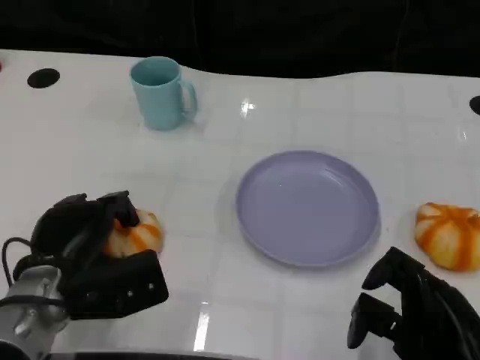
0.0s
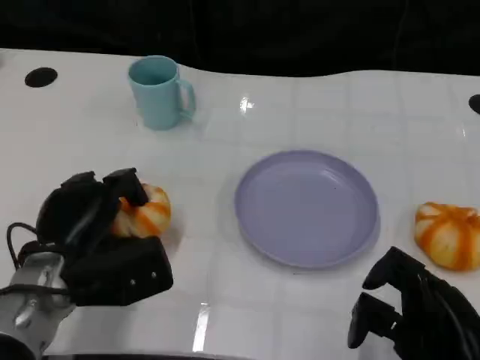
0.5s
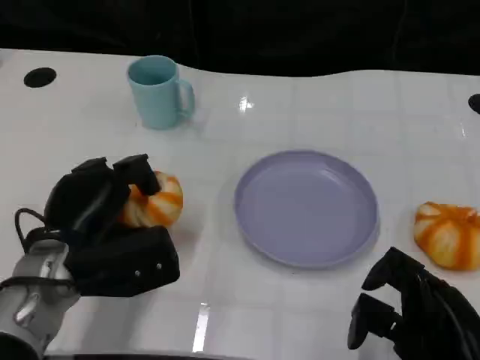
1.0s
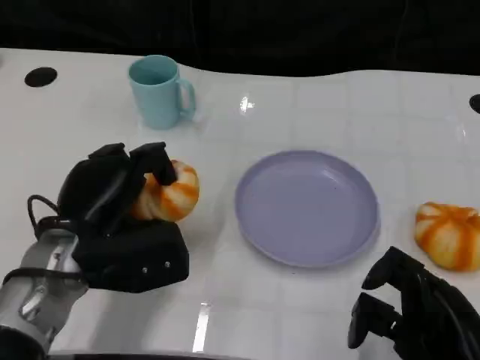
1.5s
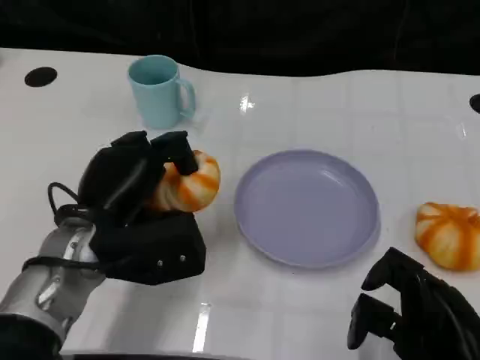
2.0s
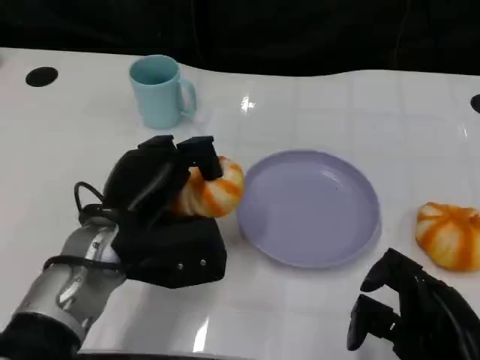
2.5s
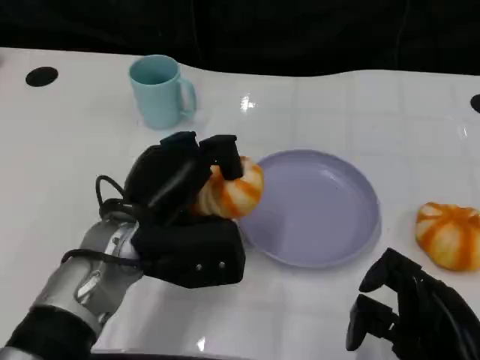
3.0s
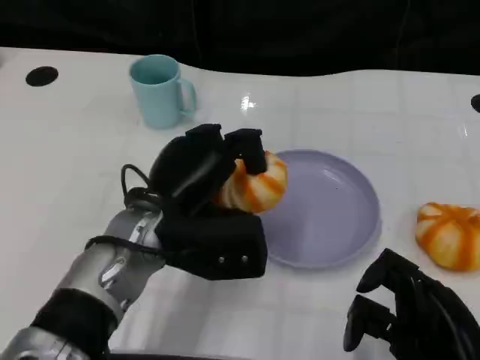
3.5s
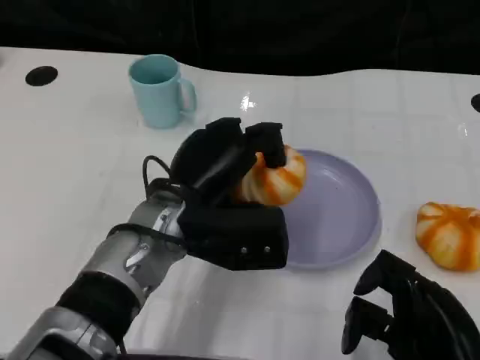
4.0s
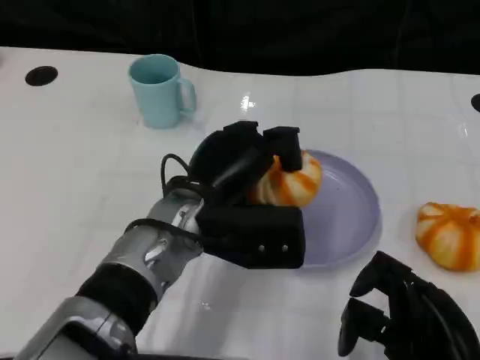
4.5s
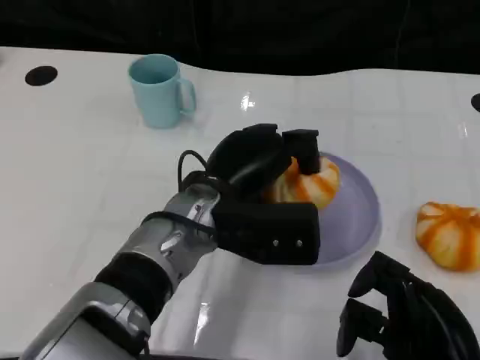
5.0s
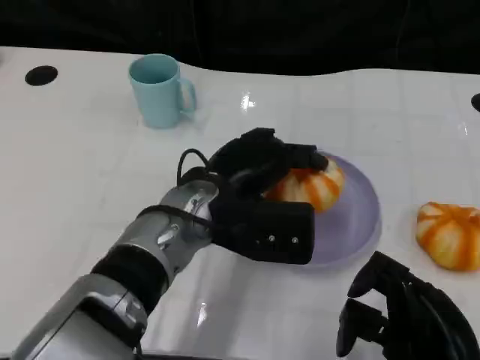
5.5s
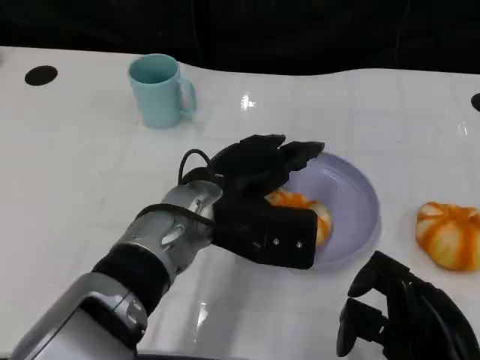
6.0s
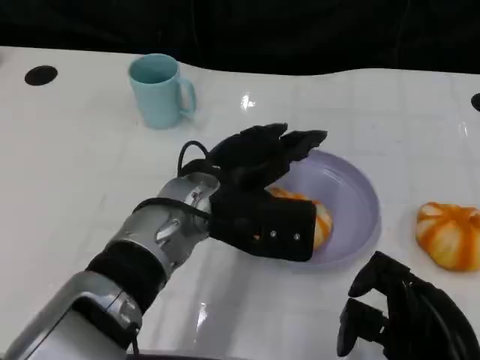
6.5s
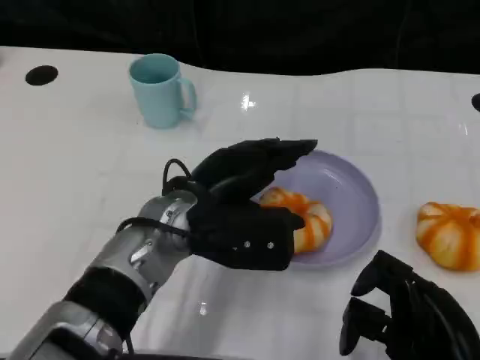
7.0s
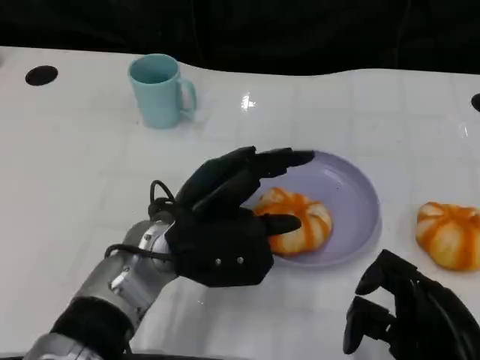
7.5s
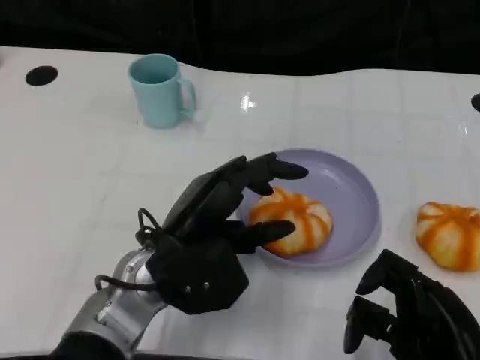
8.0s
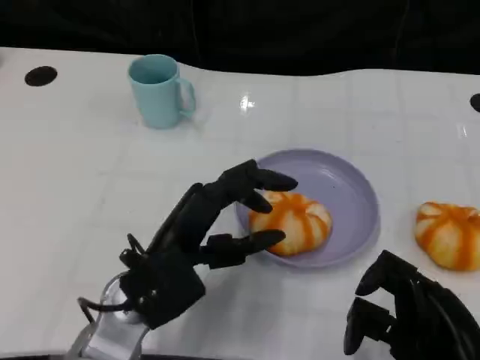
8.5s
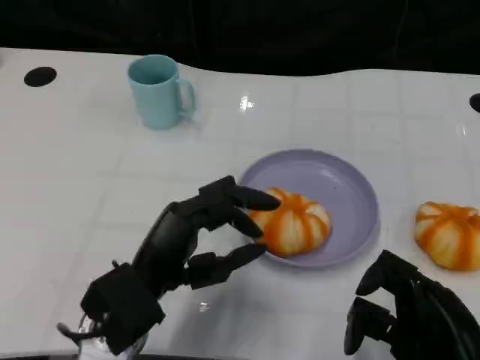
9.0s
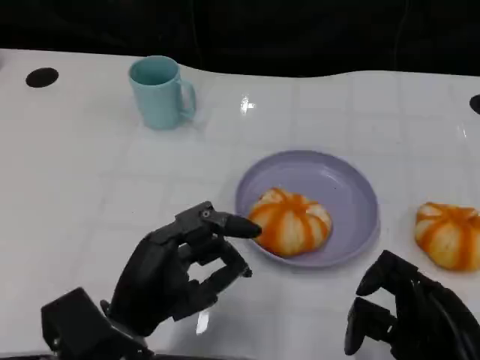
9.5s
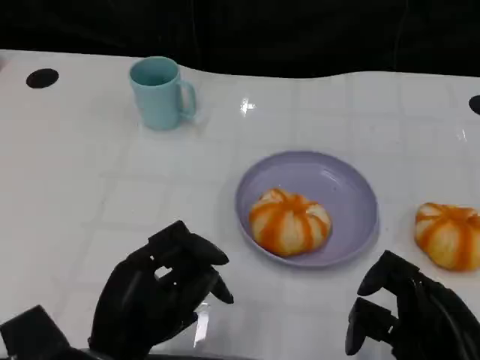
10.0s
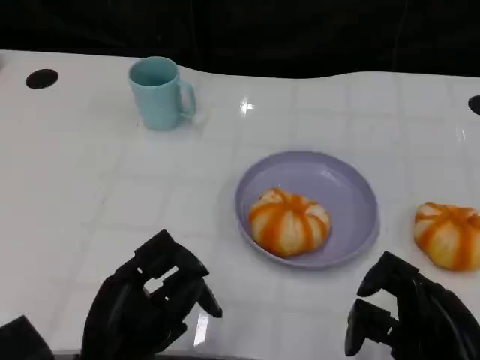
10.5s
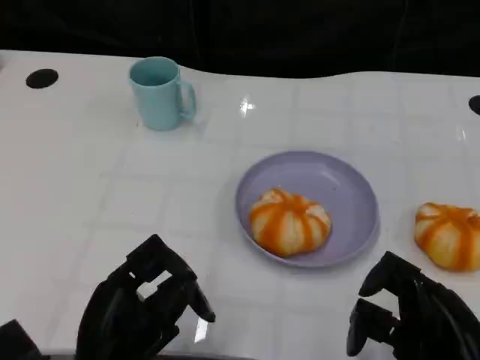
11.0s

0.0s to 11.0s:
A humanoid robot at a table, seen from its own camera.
Task of the whole recording: Grasp the bread from the table and place it into the plate.
0.0s to 2.0s: The left hand is displaced upward by about 5 cm.
2.0s to 3.5s: The left hand is displaced to the right by roughly 5 cm.
3.5s to 5.5s: The left hand ends up roughly 5 cm from where it was.
7.5s to 9.0s: The left hand travels backward by approximately 5 cm.
9.0s to 11.0s: The left hand shifts some 5 cm backward.

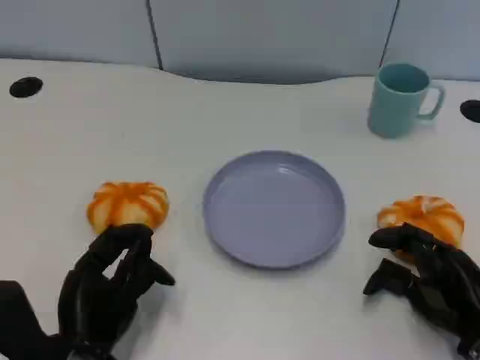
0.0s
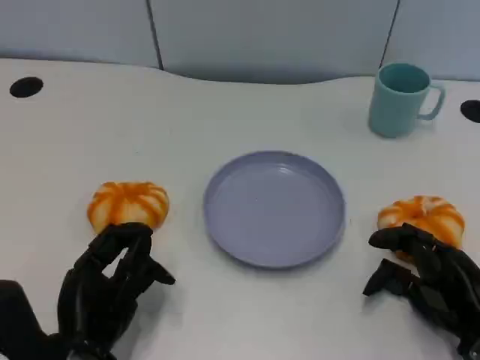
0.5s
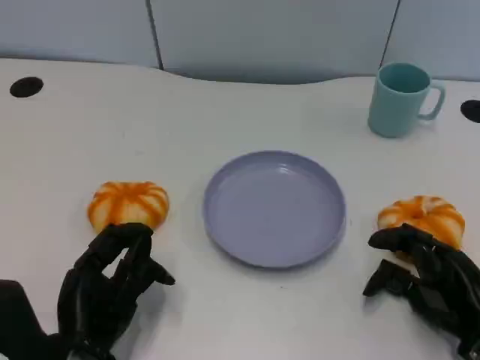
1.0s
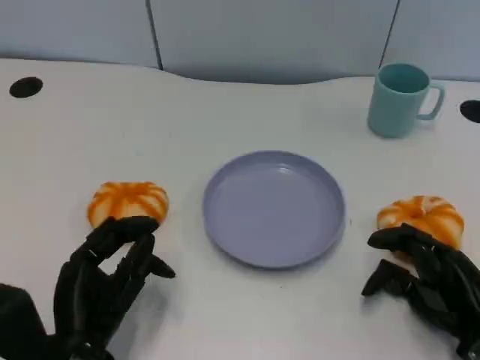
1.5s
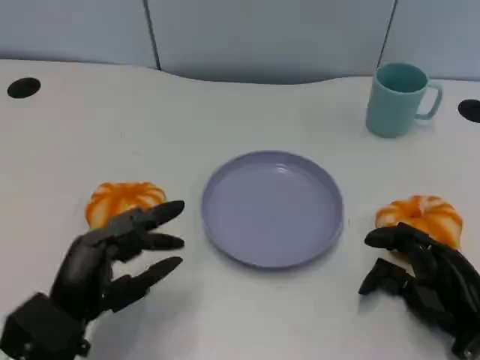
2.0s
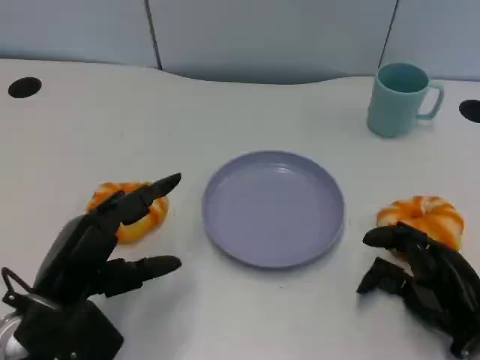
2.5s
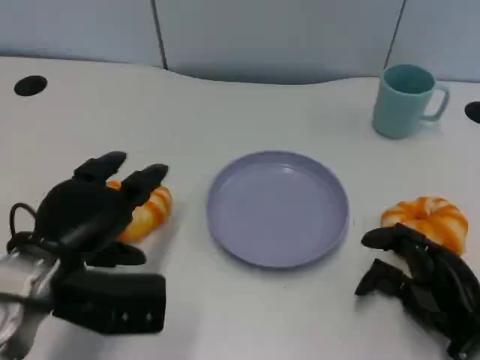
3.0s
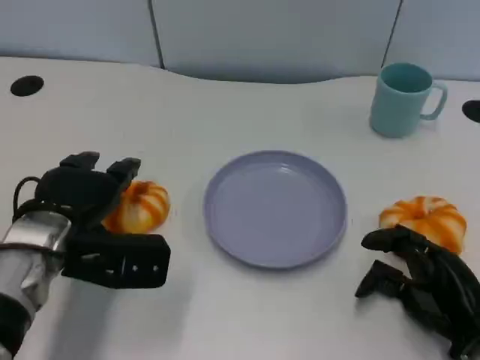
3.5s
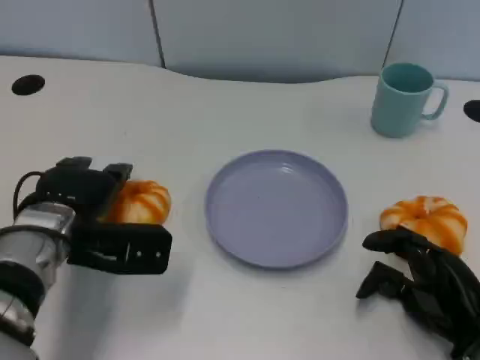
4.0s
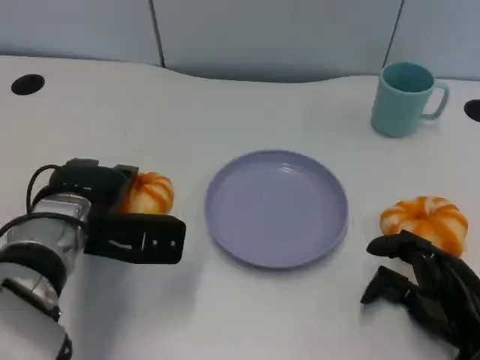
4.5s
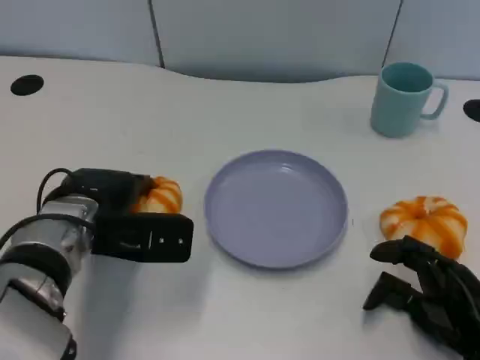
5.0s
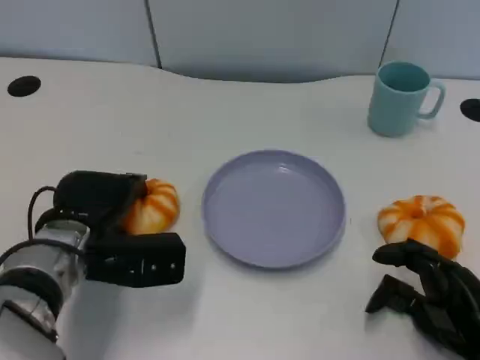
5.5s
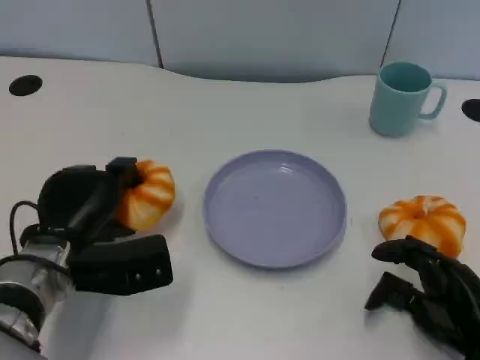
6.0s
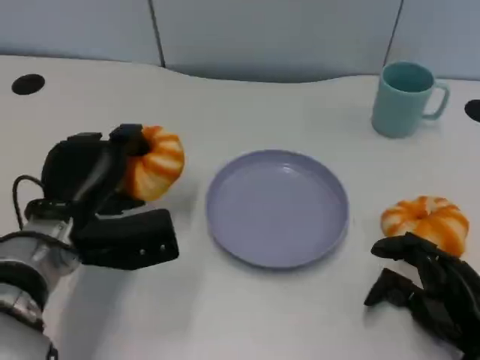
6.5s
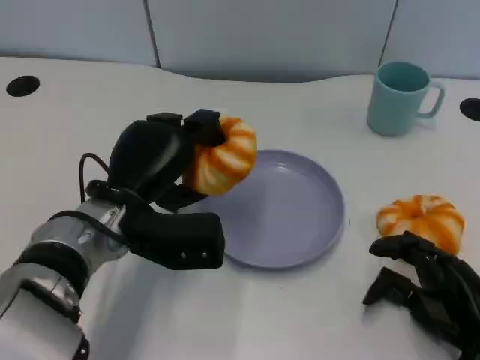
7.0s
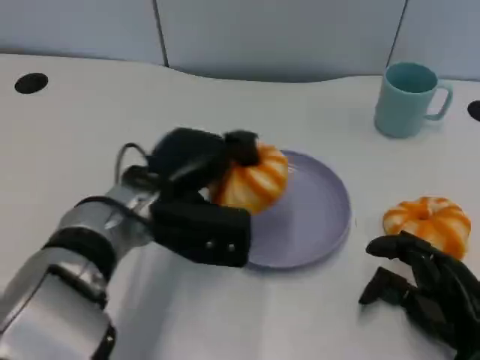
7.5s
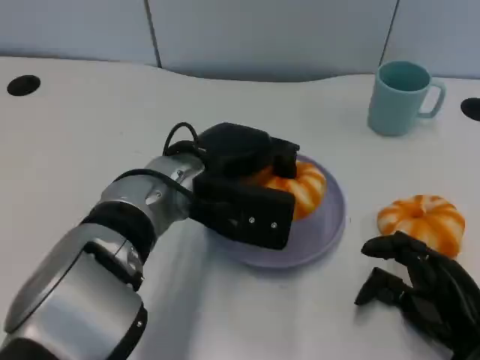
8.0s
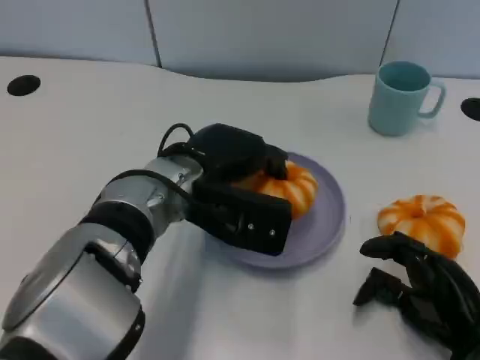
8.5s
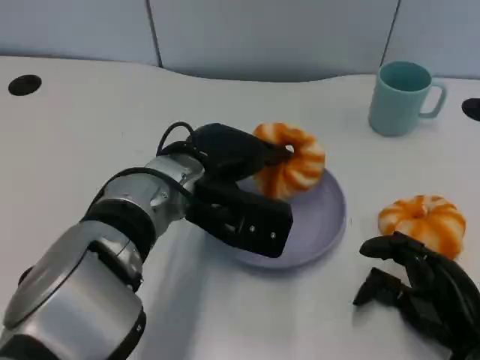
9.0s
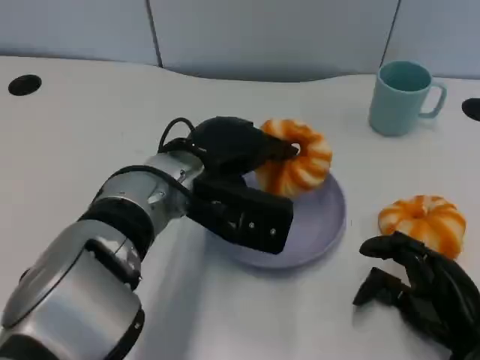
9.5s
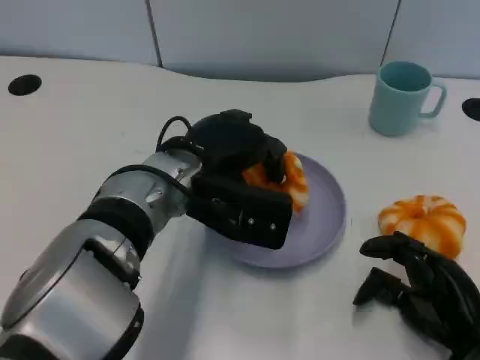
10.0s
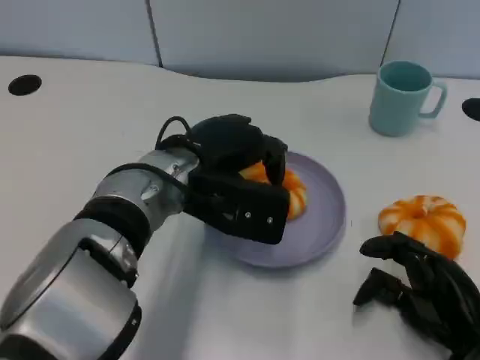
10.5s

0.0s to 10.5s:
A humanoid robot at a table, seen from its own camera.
Task of the whole recording: Grasp the bread from the table and place it into the plate.
2.0s to 4.0s: The left hand moves forward, about 10 cm.
6.5s to 8.5s: The left hand shifts about 10 cm to the right.
8.5s to 10.5s: The two hands keep their place.

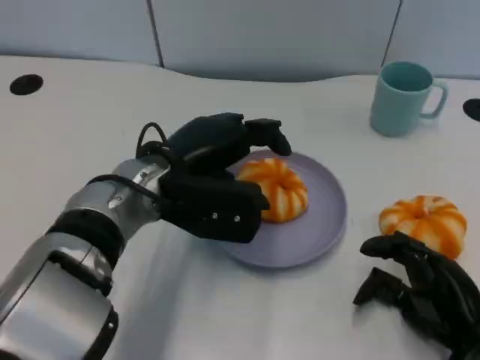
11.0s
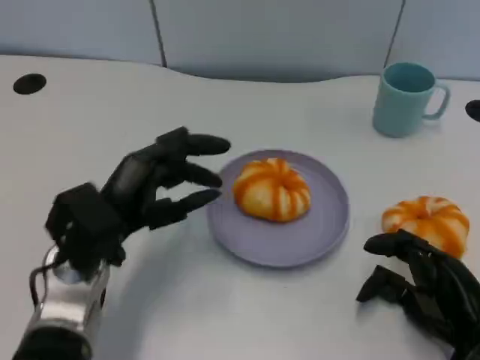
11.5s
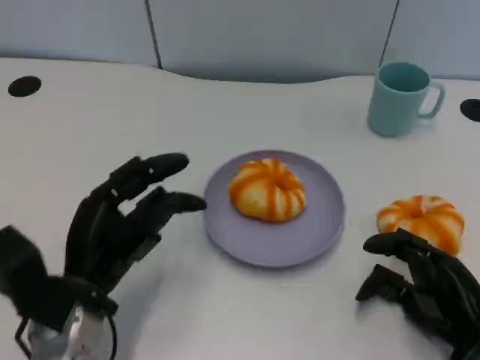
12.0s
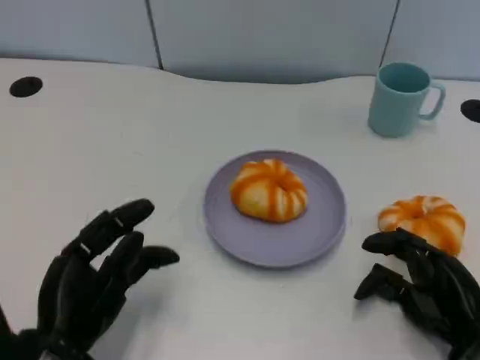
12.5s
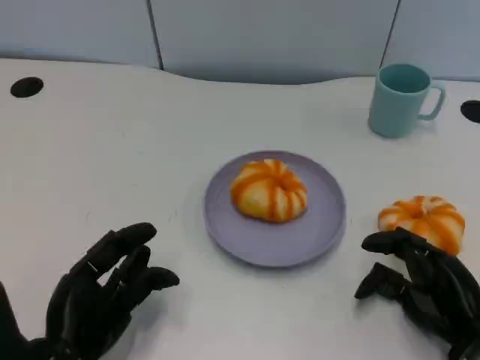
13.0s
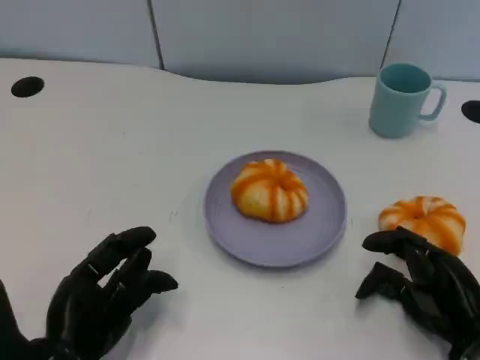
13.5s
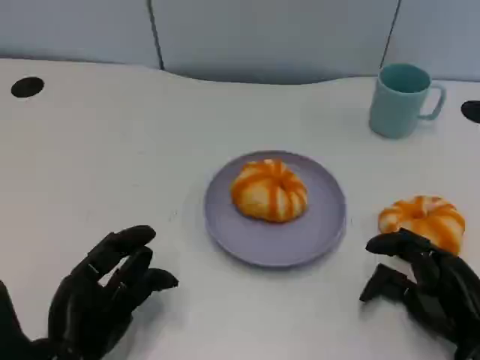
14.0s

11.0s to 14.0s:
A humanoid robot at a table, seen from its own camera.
Task of the whole recording: Grasp the bread from the table and place it into the plate.
11.0s to 12.5s: The left hand moves backward, to the left and downward, about 20 cm.
12.5s to 14.0s: The hands stay close to where they were, moving slightly.

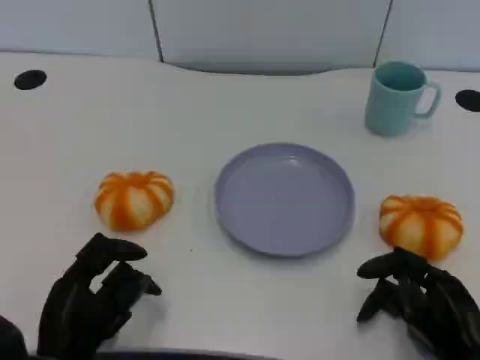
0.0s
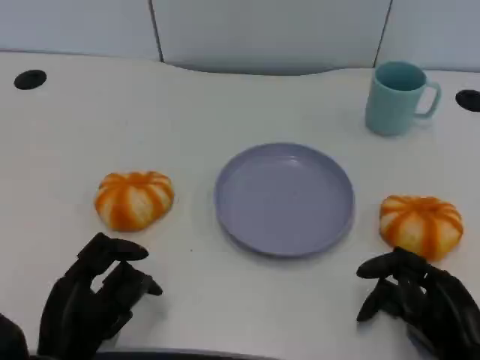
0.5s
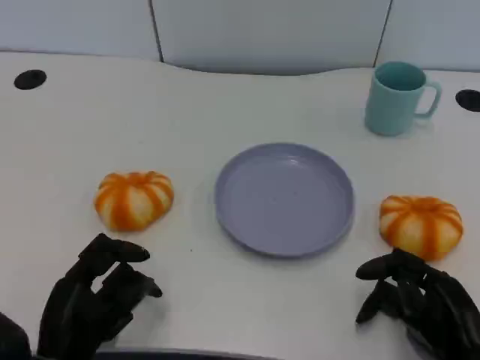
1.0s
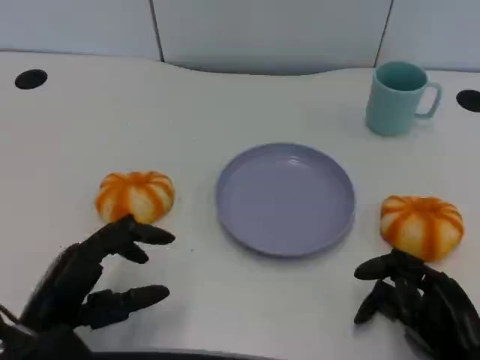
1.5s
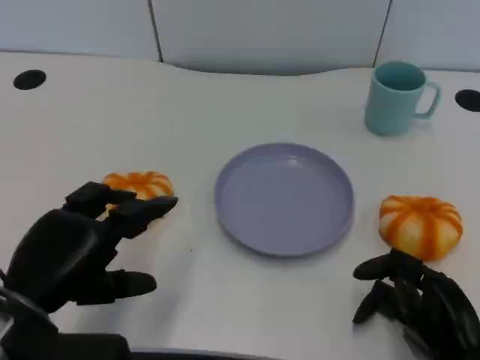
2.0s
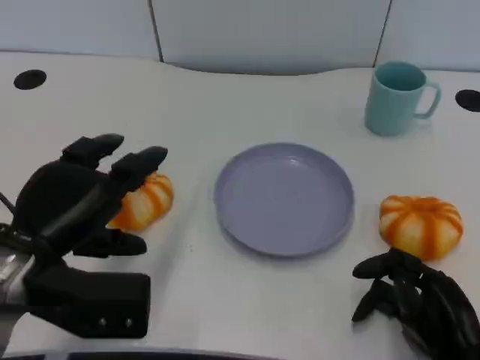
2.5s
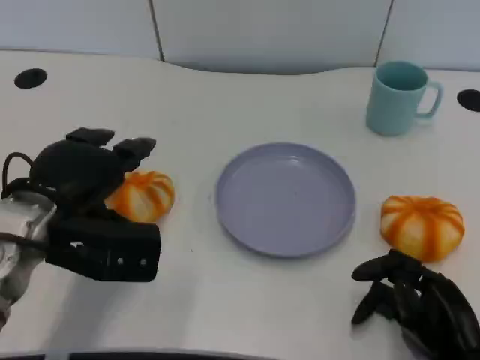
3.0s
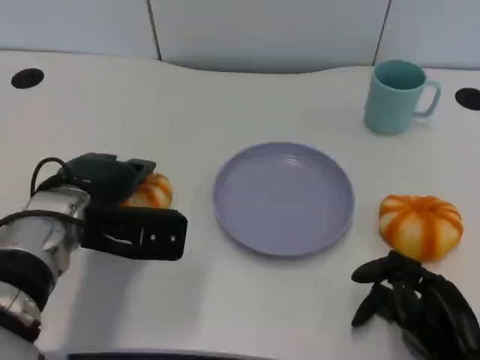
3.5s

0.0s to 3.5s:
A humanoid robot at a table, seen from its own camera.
Task of the whole recording: Grasp the bread from the table and place it into the plate.
0.0s to 2.0s: The left hand goes roughly 10 cm upward.
2.0s to 3.5s: The left hand heads forward and to the right, covering some 15 cm.
